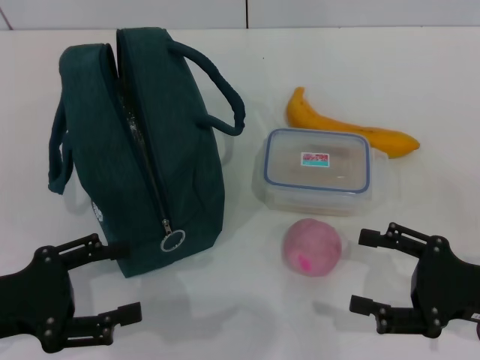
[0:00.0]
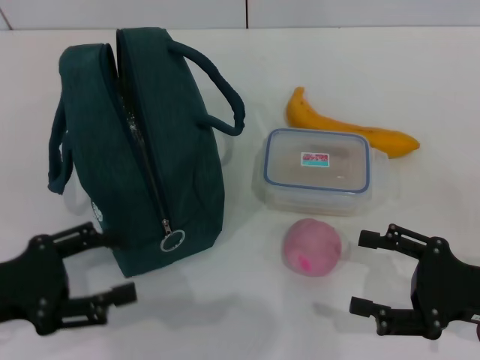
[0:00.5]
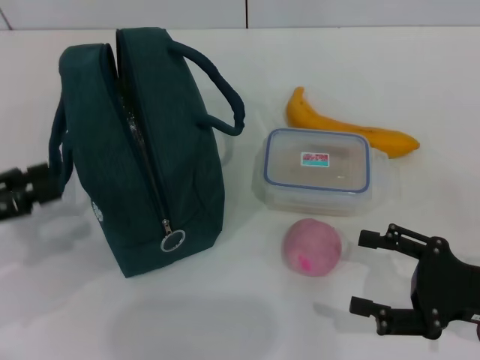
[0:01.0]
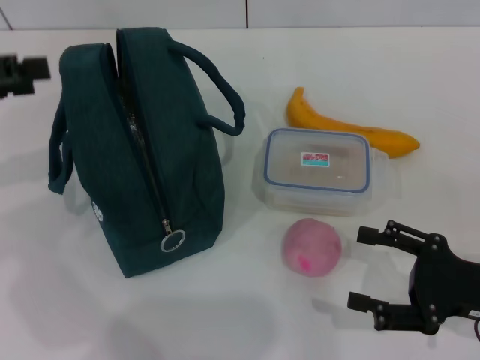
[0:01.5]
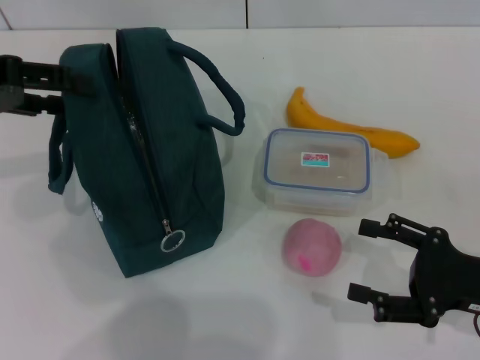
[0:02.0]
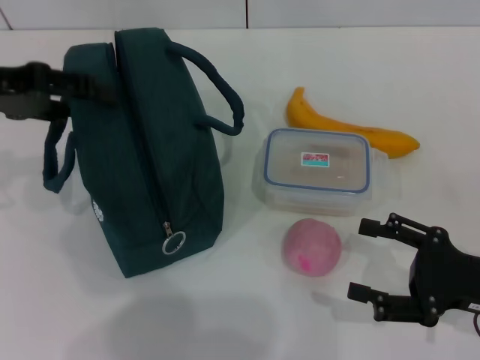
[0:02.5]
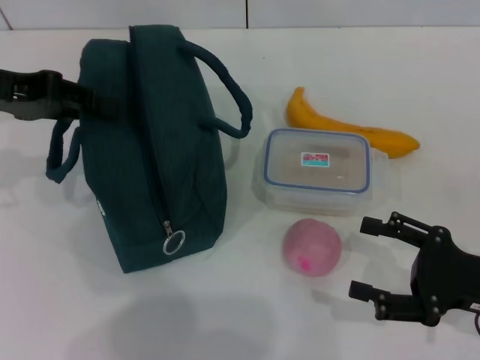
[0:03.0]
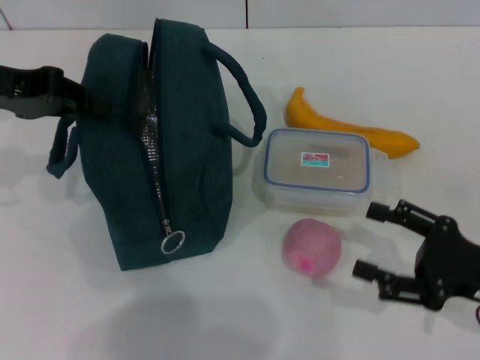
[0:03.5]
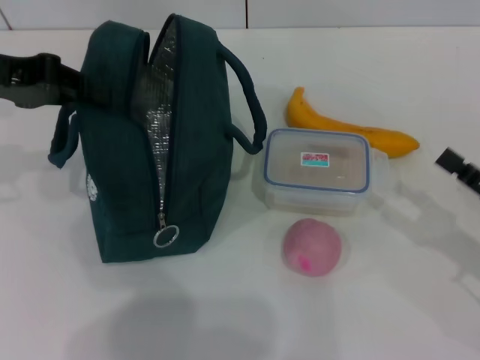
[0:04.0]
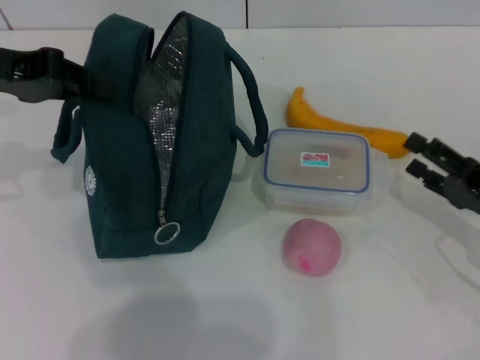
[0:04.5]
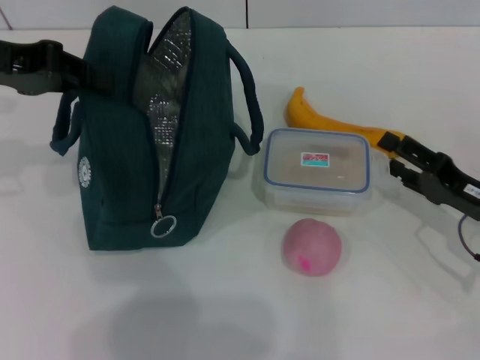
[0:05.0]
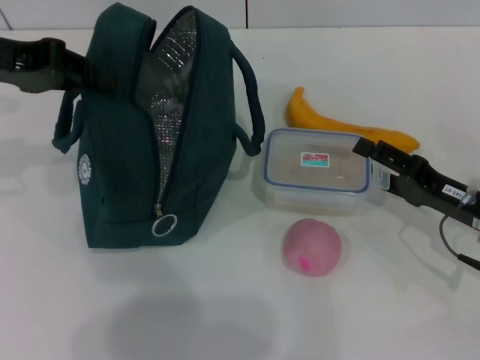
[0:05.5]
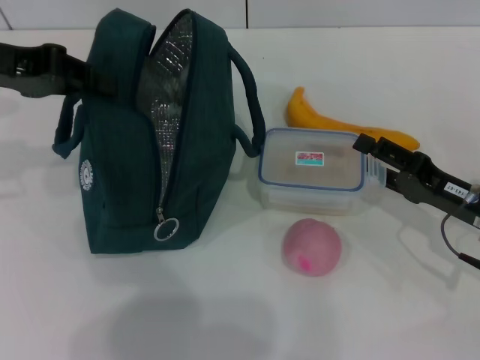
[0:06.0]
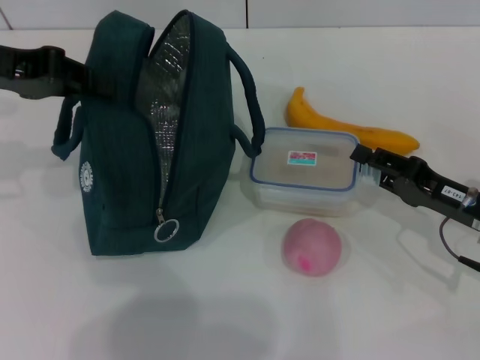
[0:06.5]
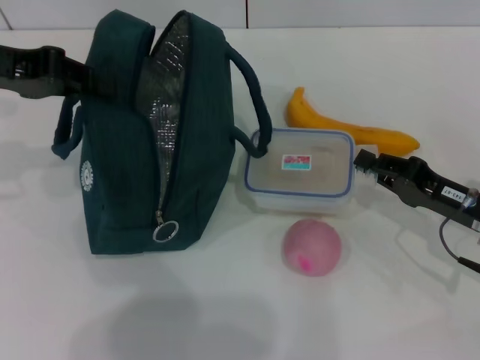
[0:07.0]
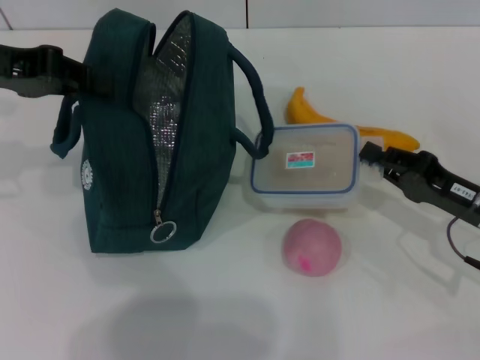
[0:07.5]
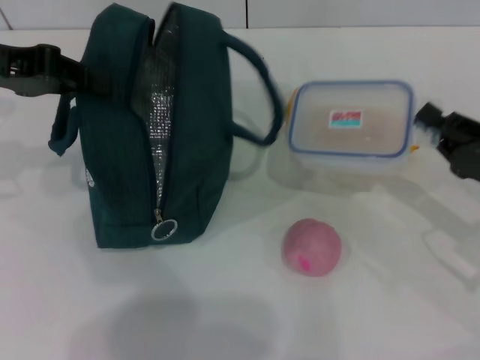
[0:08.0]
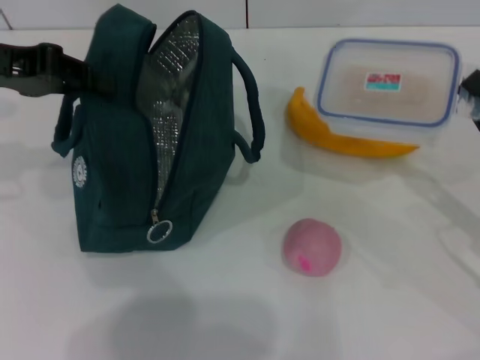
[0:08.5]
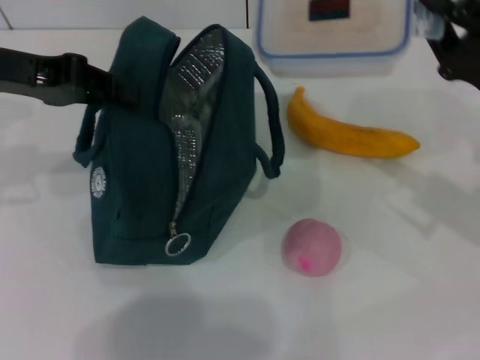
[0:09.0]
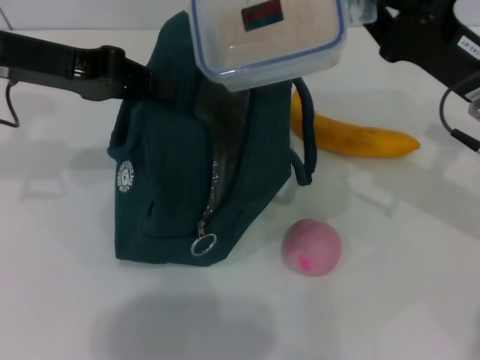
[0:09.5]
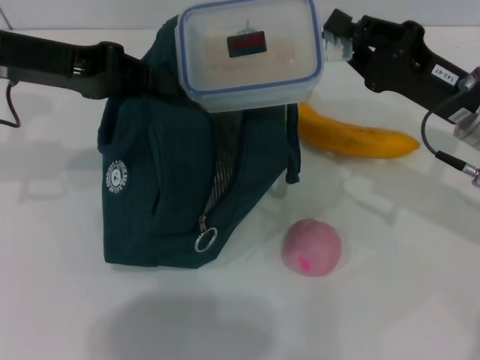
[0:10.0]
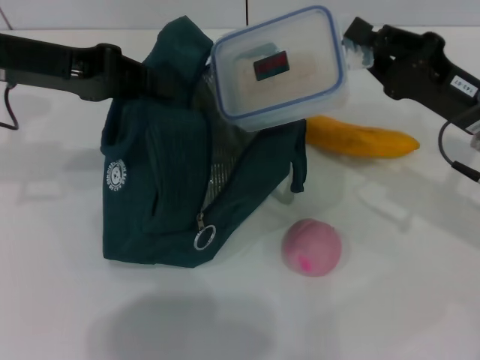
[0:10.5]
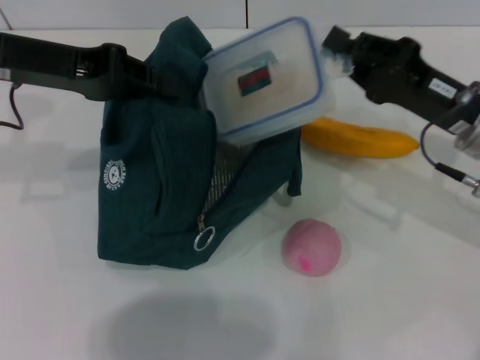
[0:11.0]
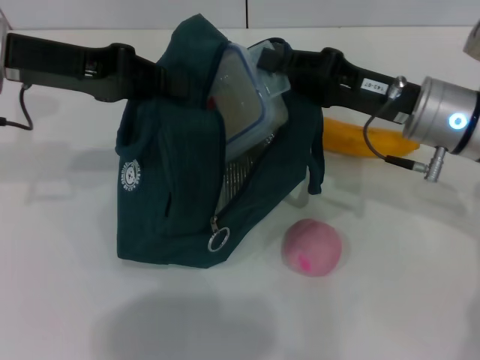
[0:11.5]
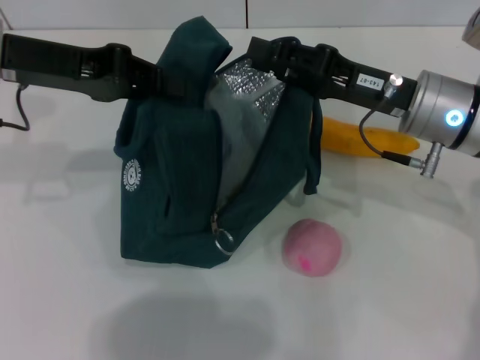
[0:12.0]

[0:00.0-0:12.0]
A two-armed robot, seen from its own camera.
Step, 0:00.0 to 0:03.5: Hold the lunch bag with your left hand.
Step, 0:04.0 to 0:07.0: Pick up the lunch box with your right hand.
0:00.0 to 0:02.0: The left gripper shifts some 20 cm forward and upward.
0:02.0 to 0:04.0: The left gripper closes up.
0:04.0 to 0:06.0: The right gripper moves forward and to the left, about 10 cm.
0:06.0 to 0:08.0: The right gripper closes.
0:08.0 to 0:10.0: The right gripper moves to the left, forward and upward, roughly 10 cm.
0:10.0 to 0:12.0: The right gripper ends up approximately 5 cm from where it was.

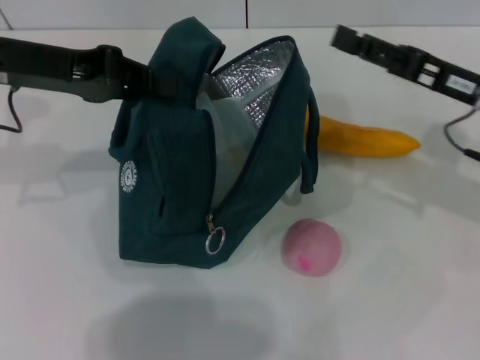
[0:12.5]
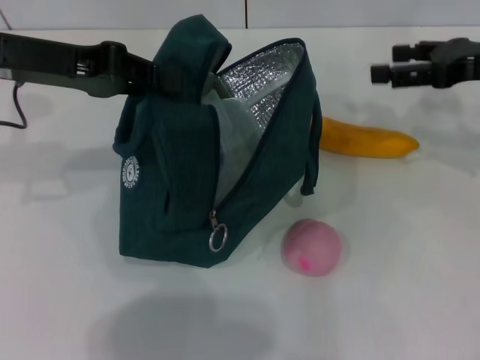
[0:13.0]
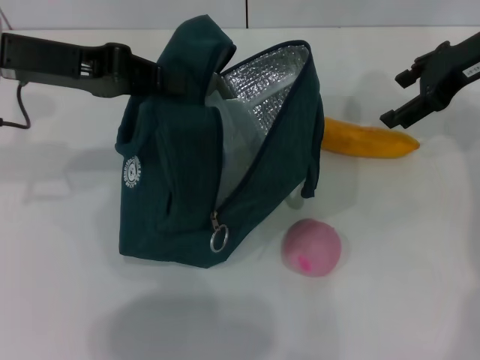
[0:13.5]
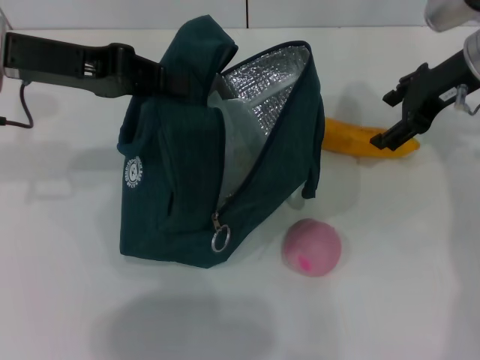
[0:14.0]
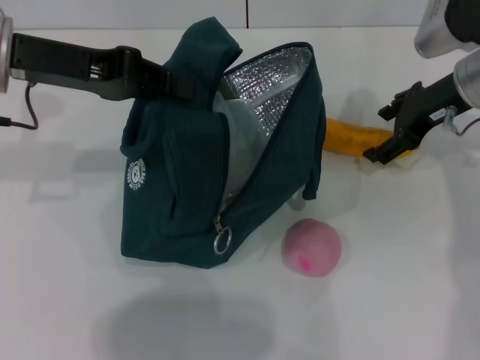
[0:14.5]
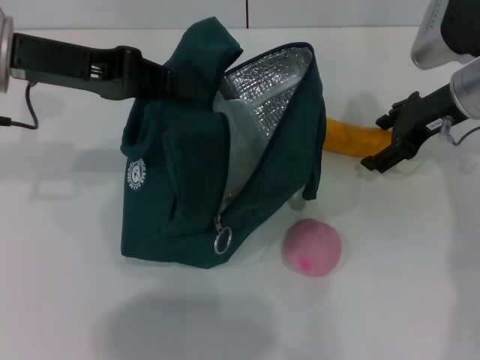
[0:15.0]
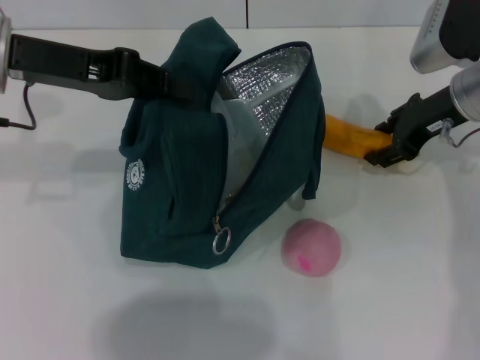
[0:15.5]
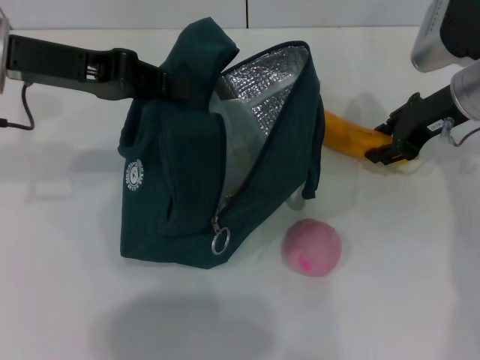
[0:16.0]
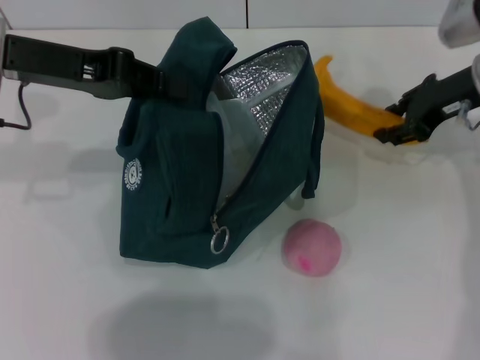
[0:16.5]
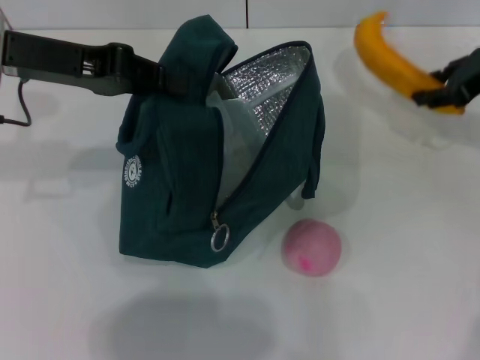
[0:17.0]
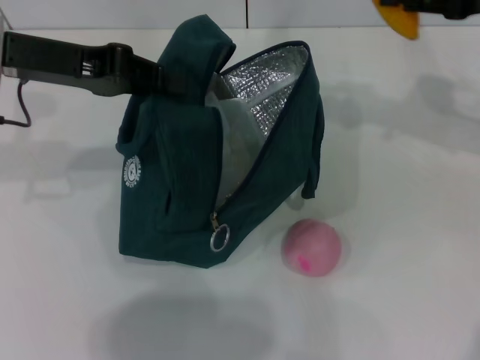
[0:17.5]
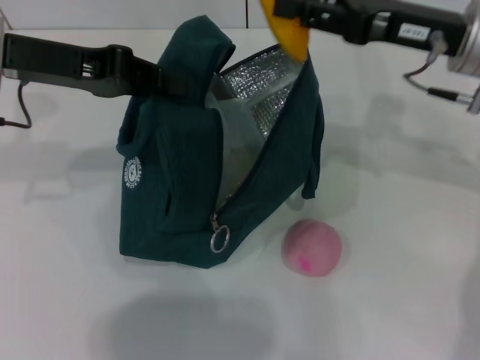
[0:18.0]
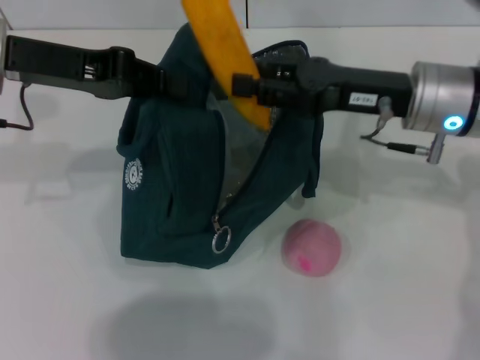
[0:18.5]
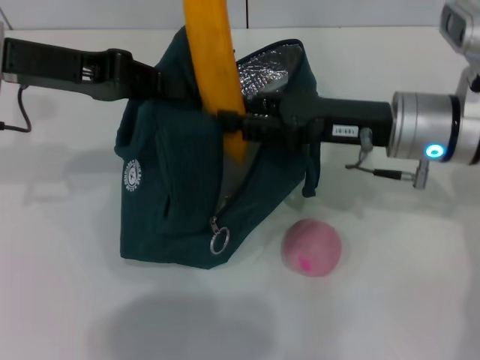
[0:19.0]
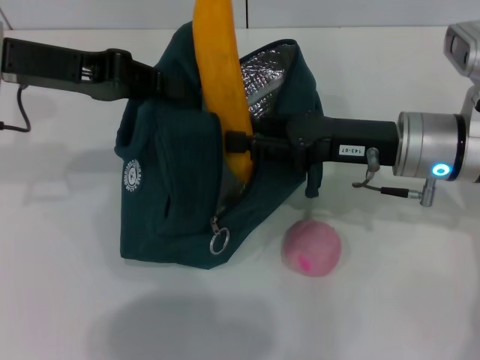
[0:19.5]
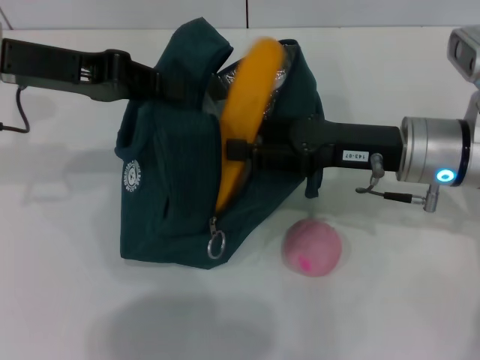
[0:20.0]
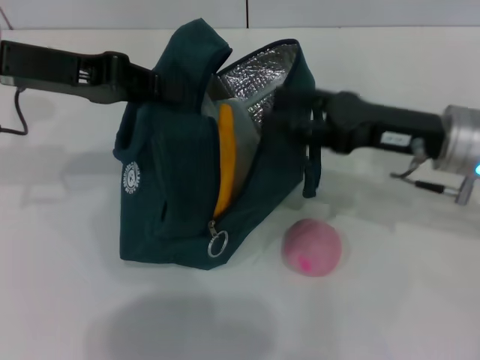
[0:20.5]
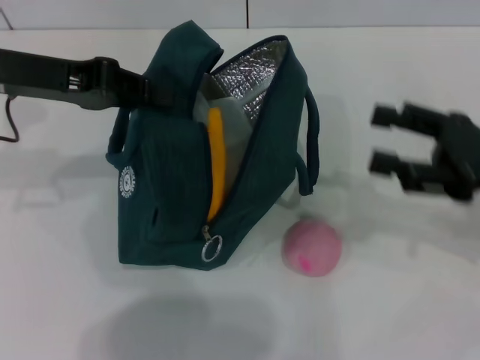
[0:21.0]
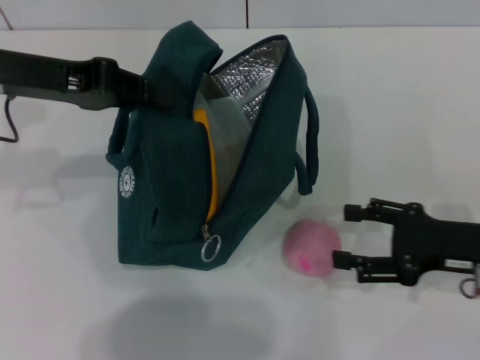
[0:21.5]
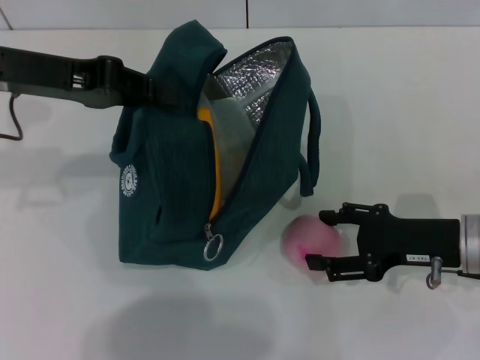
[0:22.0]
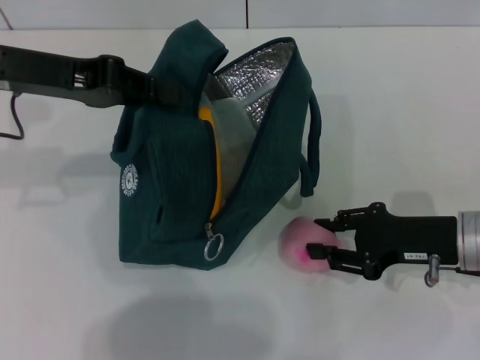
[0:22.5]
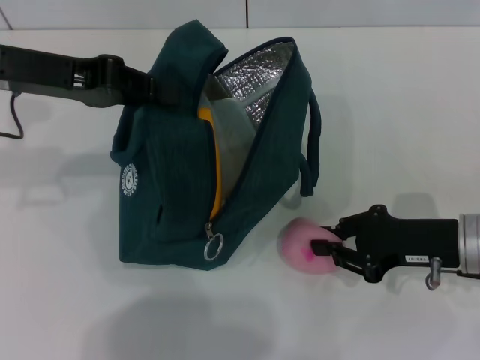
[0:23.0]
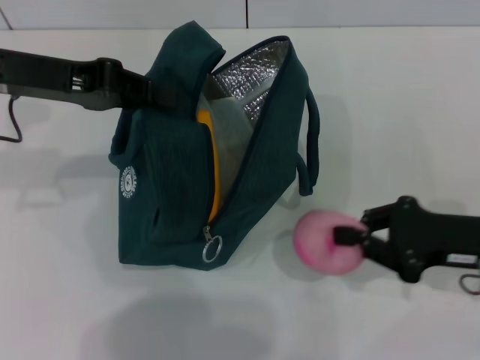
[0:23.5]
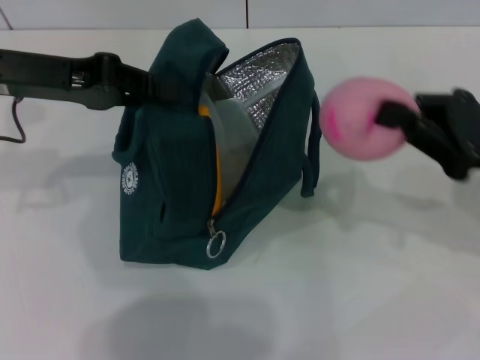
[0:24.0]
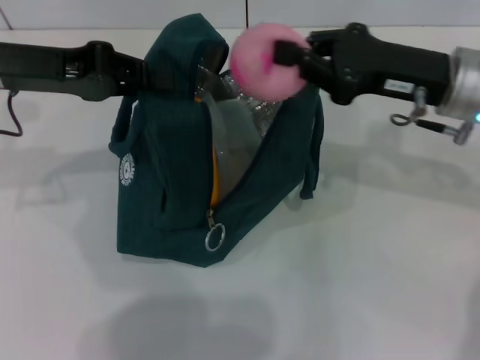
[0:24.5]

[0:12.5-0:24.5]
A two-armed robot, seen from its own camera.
Step, 0:12.5 to 0:15.5: Take the banana with your right hand.
Step, 0:16.0 to 0:20.0: Put the banana into the lunch bag with your right hand.
Step, 0:20.5 to 0:23.0: Grab the peach with your right hand.
0:12.5 to 0:14.5: The right gripper heads forward, covering approximately 10 cm.
0:14.5 to 0:16.5: The right gripper closes.
0:16.5 to 0:18.5: The right gripper travels to the left and backward by some 10 cm.
0:18.5 to 0:20.5: The right gripper opens its fingers.
0:20.5 to 0:22.5: The right gripper is displaced downward by some 5 cm.
0:22.5 to 0:24.5: The right gripper travels upward and forward by some 15 cm, and closes.

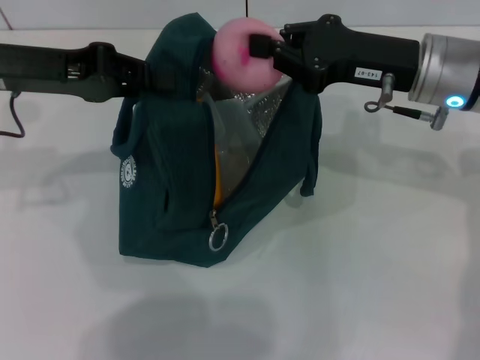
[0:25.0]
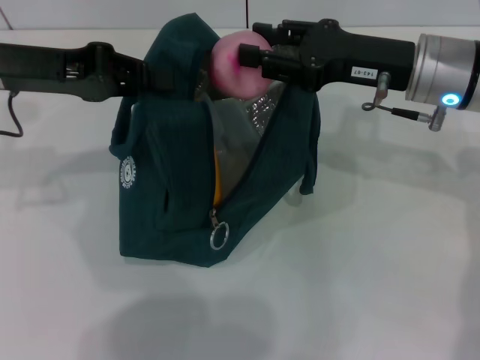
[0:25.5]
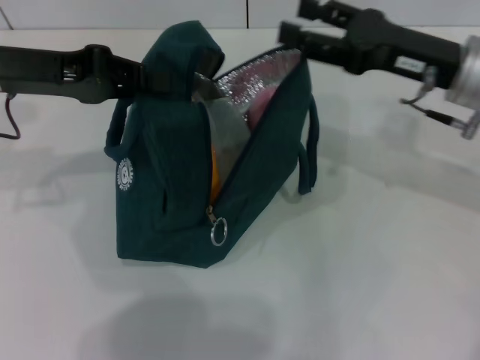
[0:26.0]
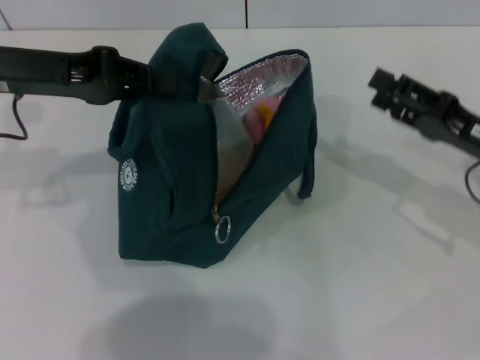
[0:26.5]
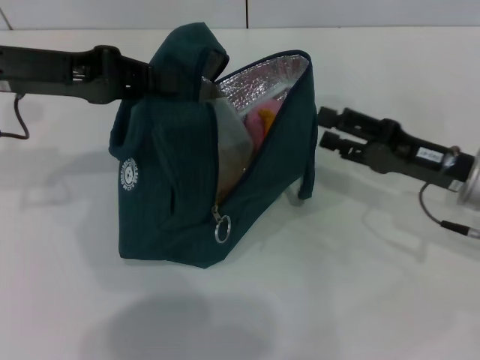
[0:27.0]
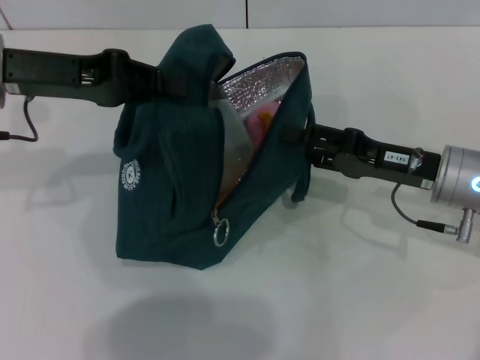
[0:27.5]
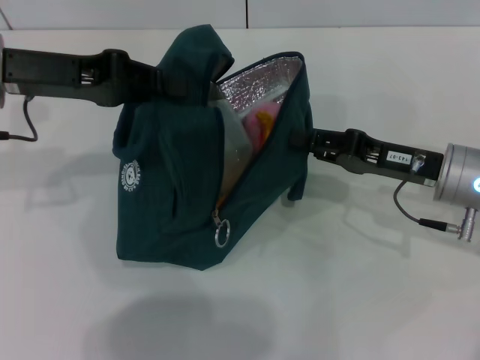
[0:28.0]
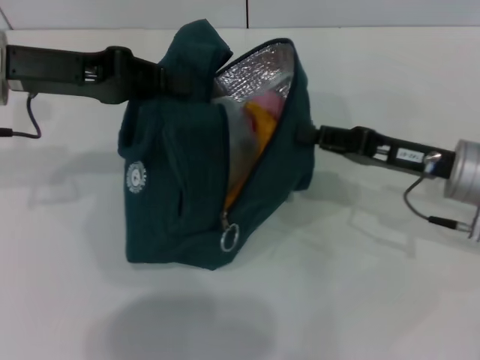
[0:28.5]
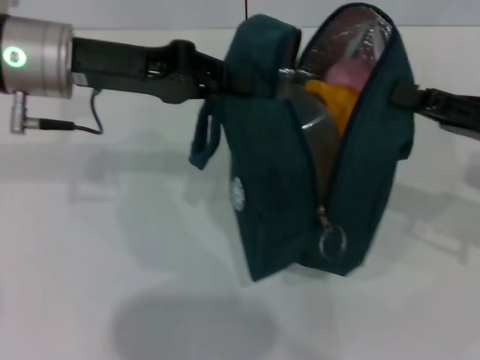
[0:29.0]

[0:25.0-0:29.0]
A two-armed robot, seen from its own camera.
0:25.0 to 0:27.0: The right gripper travels downward, backward and to the right by approximately 10 cm, and opens up.
0:27.0 to 0:29.0: The left gripper heads to the right, covering about 5 cm. The right gripper heads upward, covering roughly 5 cm, and closes its fingers.
